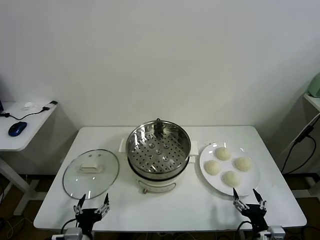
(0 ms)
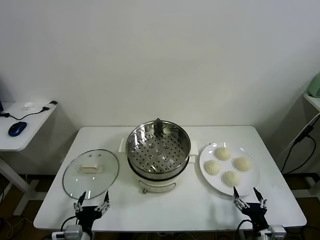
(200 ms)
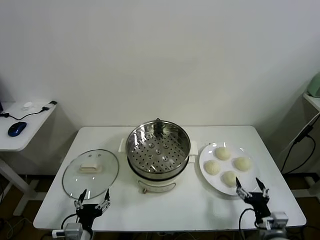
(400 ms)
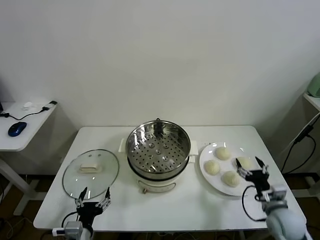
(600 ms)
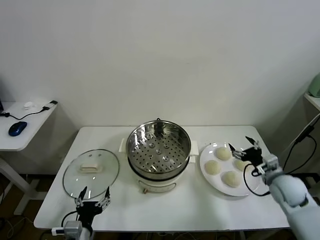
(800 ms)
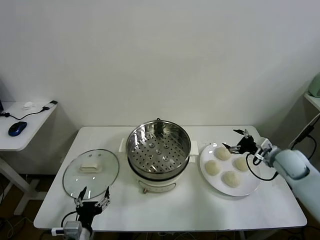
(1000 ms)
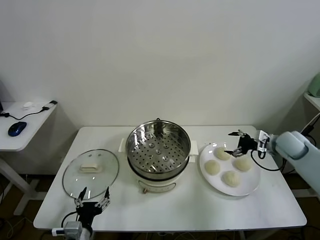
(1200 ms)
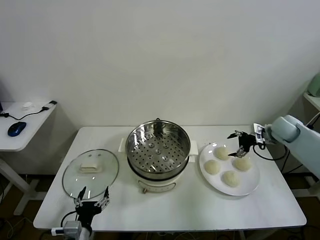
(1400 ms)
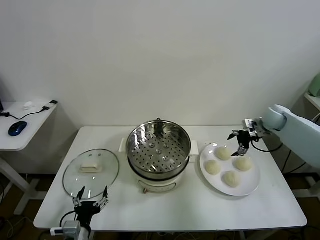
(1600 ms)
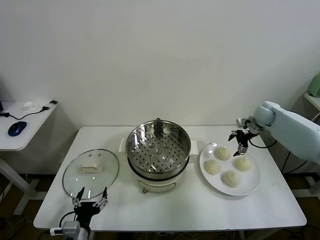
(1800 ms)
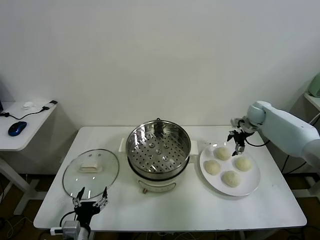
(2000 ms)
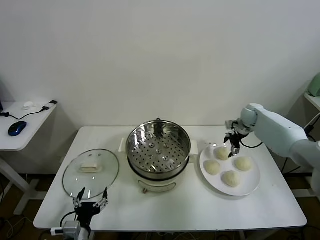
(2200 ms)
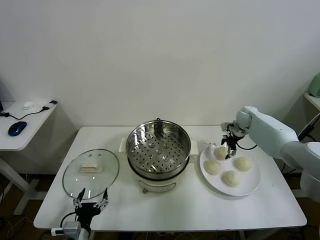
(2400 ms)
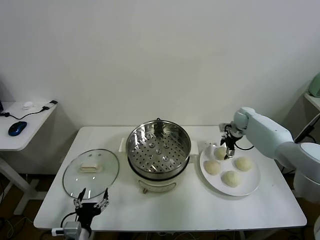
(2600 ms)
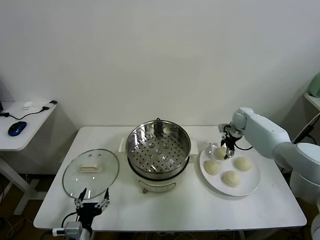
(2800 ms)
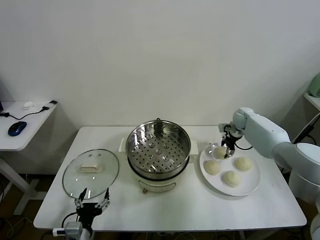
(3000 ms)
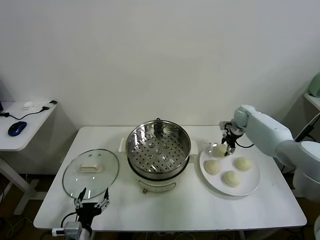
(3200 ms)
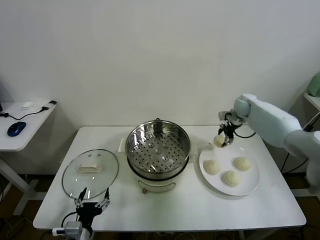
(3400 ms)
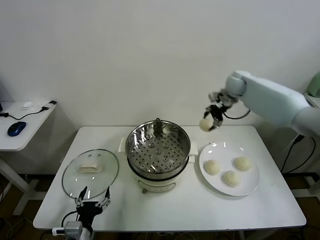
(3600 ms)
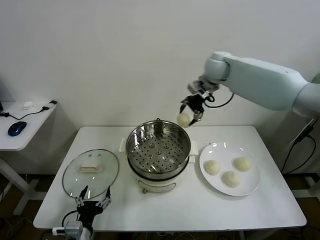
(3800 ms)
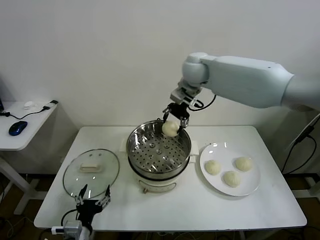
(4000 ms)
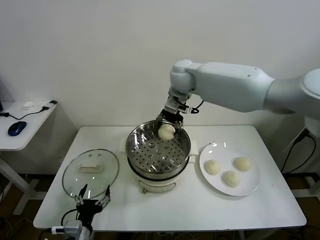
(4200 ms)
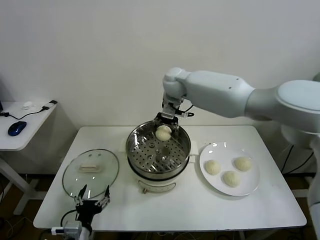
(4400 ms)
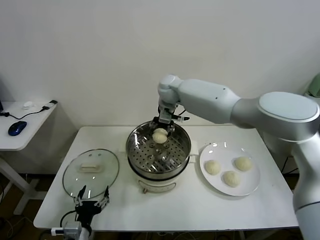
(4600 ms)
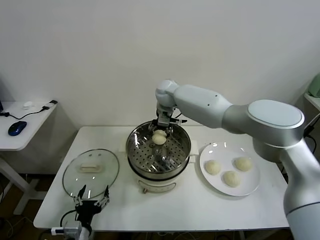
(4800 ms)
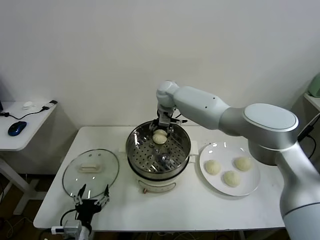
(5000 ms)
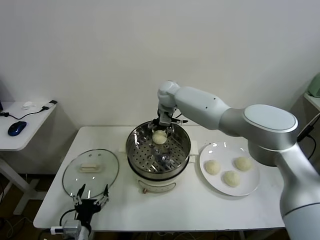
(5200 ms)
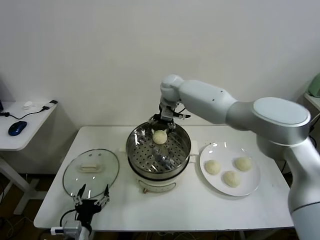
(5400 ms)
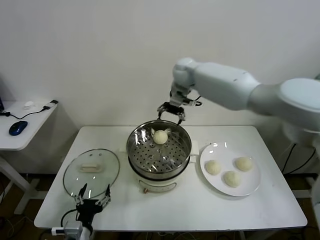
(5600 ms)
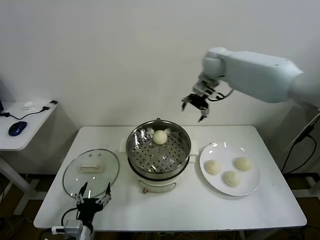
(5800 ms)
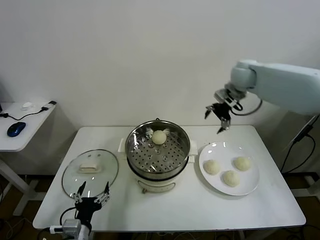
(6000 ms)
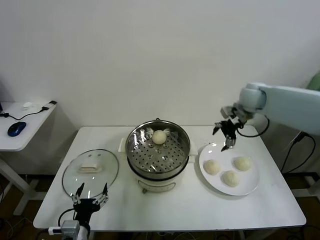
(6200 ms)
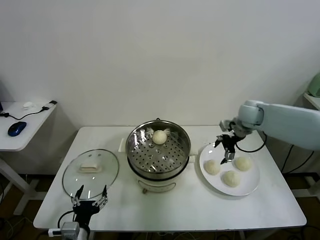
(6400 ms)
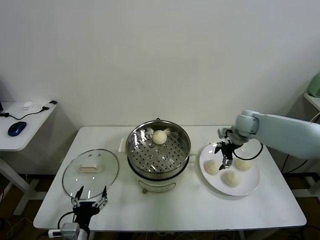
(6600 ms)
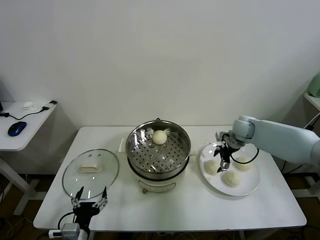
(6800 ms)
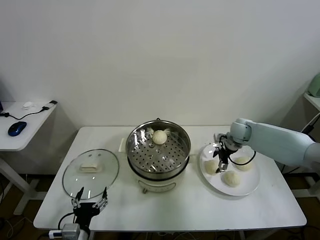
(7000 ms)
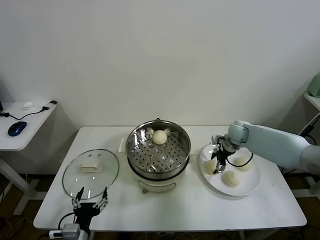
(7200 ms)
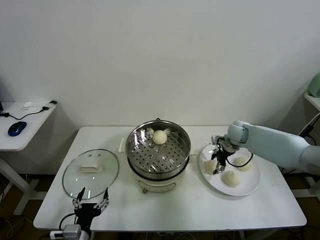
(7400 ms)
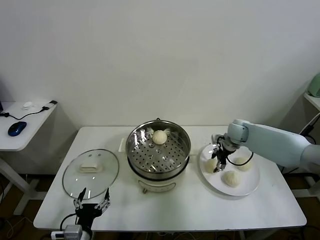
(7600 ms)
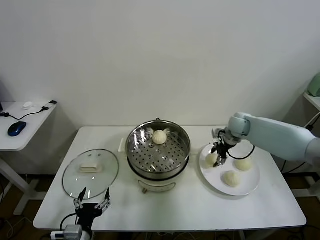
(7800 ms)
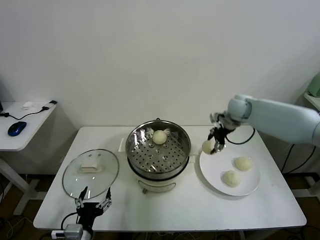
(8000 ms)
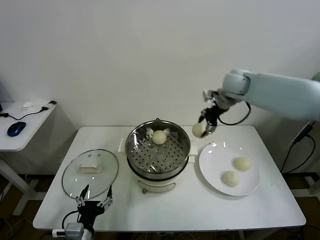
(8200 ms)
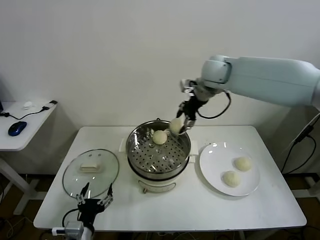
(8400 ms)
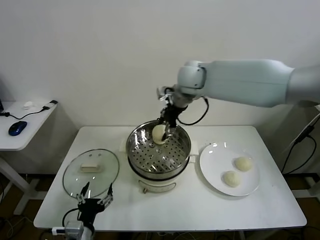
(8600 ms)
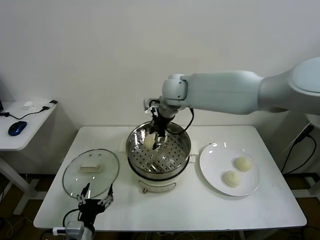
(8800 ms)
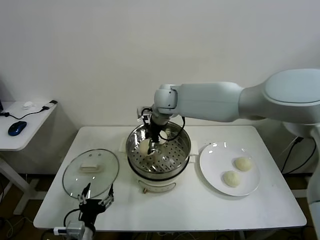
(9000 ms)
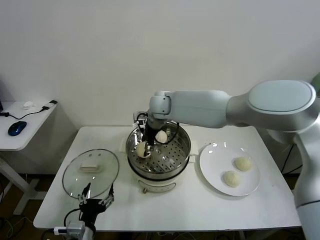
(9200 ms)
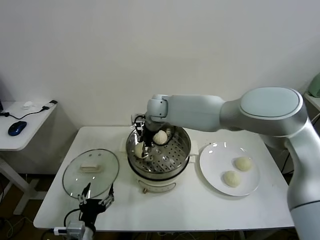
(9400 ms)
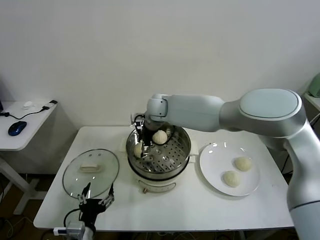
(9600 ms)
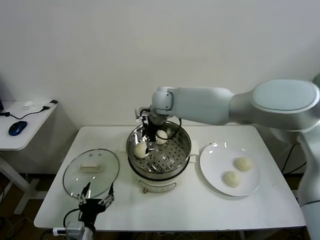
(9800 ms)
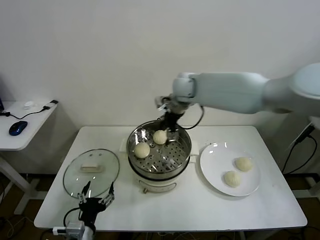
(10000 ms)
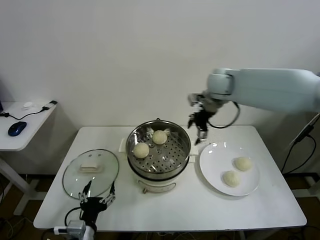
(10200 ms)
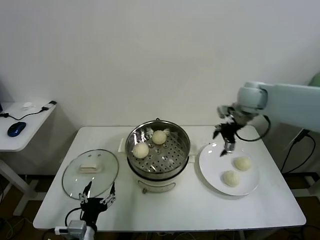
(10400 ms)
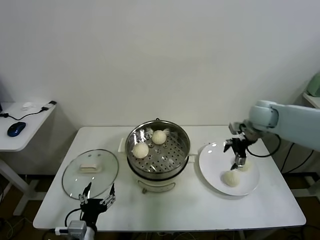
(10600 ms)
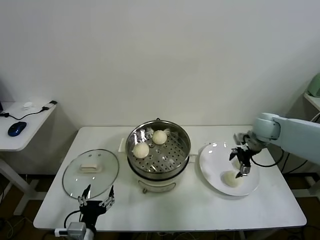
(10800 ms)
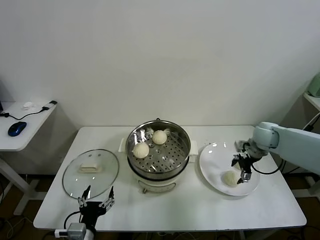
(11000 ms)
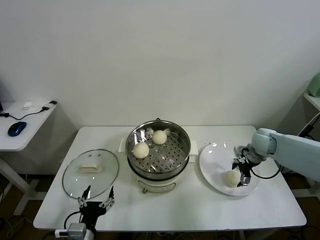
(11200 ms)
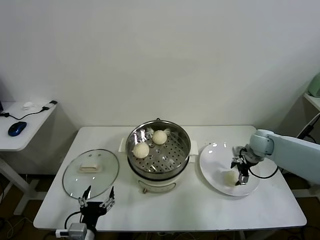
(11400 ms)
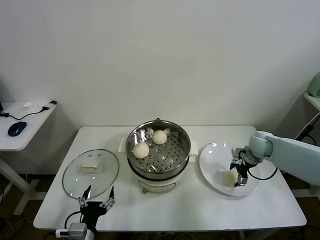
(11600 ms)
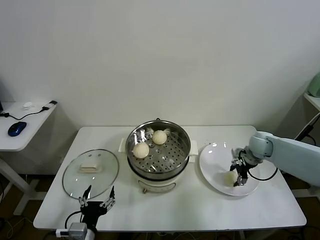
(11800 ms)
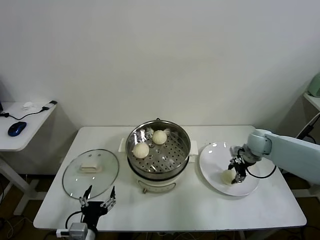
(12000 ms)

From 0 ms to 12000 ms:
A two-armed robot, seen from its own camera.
Task of the whole recording: take steamed baozi put them in steamer.
Step, from 0 ms to 3000 ms: Grasp the baozi in the plate with right gripper.
Step, from 3200 ms to 5400 ms: Place the baozi on the steamer with right gripper.
Step, from 5600 ms to 7400 ms: Grasp the baozi in the plate with right gripper.
Step, from 7600 ms to 9800 ms: Place the baozi on the steamer with right gripper.
Step, from 10000 ms to 11800 ms: Grasp the baozi in the plate with right gripper.
From 1600 ms to 3000 ms: The right gripper heads to the left, covering about 5 cm, and closes.
From 3000 ms to 4400 ms: The right gripper goes about 35 cm to the left and upward.
From 4400 ms to 6000 ms: The right gripper moves to the right, approximately 30 cm, and opens its fingers.
From 6000 ms to 7600 ms: The right gripper travels downward by approximately 15 cm, and closes up.
From 7600 ms to 9000 ms: The right gripper heads to the left, covering about 30 cm.
From 9000 ms to 10400 ms: The right gripper is displaced to the right by about 35 cm, and opens its fingers.
From 10400 ms to 12000 ms: The right gripper heads downward, covering roughly 15 cm, and closes.

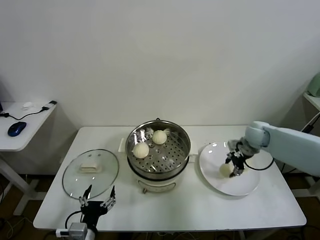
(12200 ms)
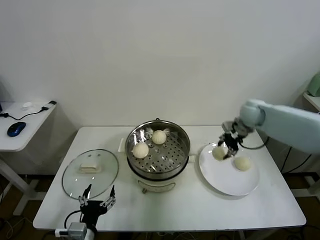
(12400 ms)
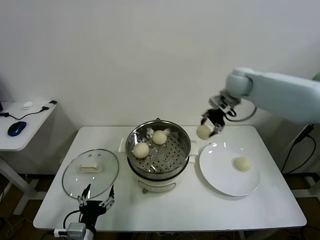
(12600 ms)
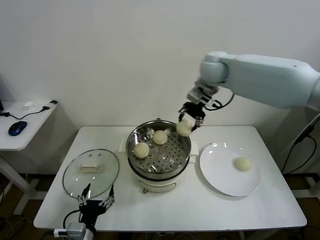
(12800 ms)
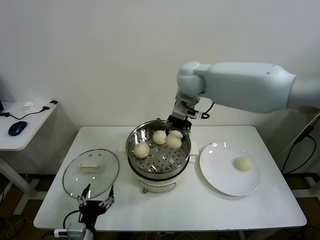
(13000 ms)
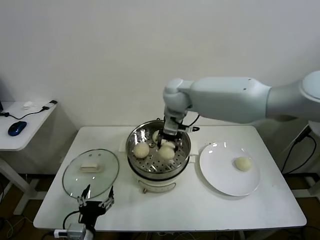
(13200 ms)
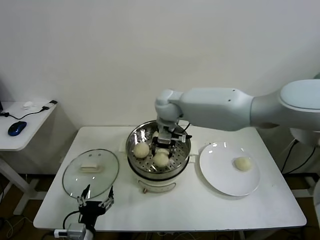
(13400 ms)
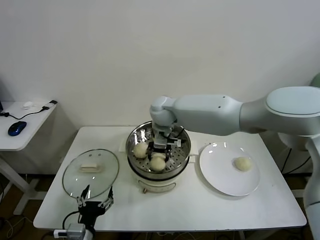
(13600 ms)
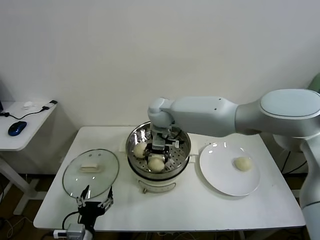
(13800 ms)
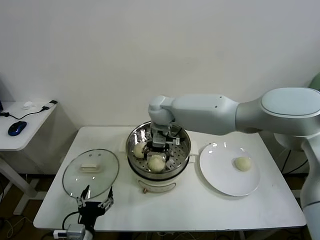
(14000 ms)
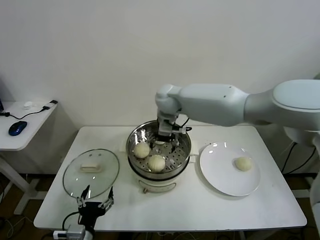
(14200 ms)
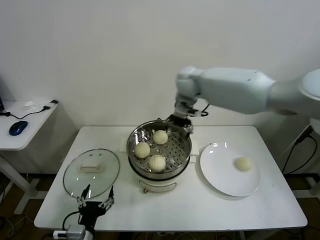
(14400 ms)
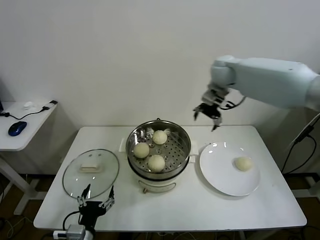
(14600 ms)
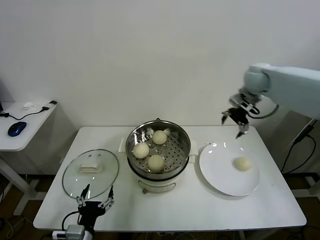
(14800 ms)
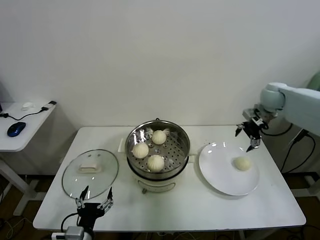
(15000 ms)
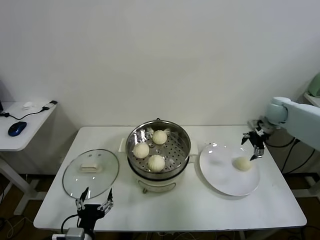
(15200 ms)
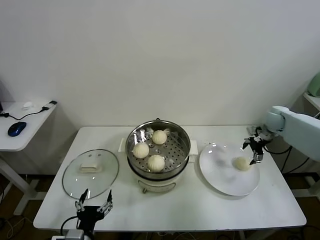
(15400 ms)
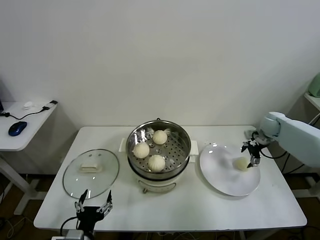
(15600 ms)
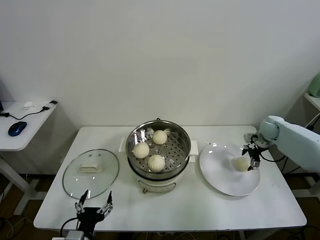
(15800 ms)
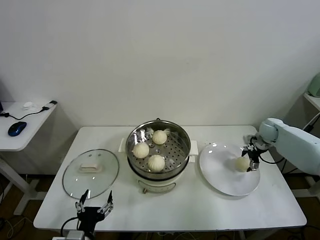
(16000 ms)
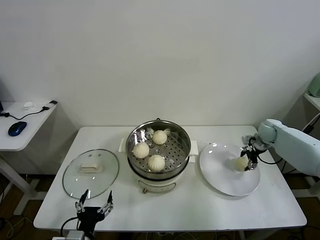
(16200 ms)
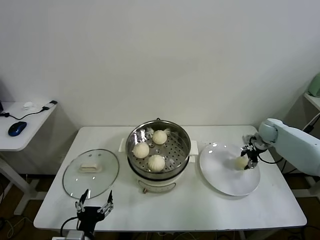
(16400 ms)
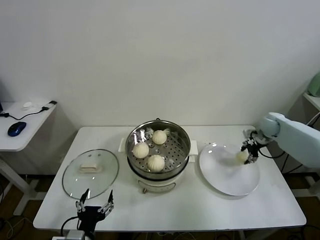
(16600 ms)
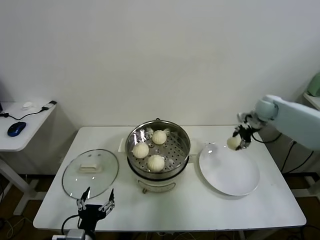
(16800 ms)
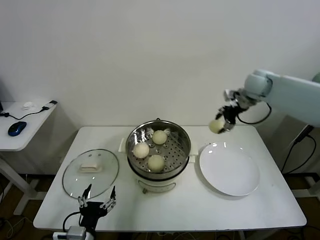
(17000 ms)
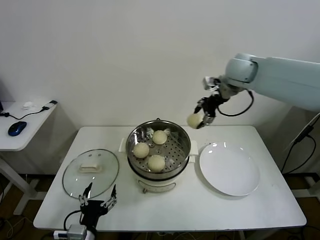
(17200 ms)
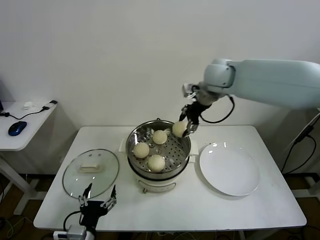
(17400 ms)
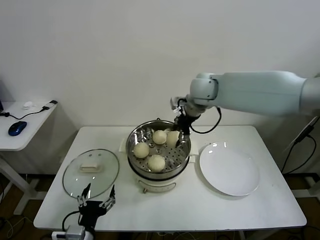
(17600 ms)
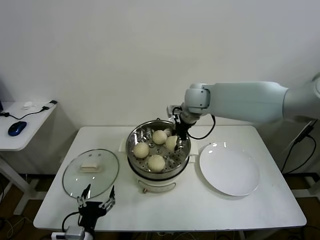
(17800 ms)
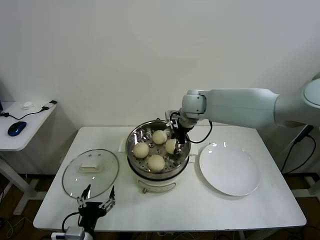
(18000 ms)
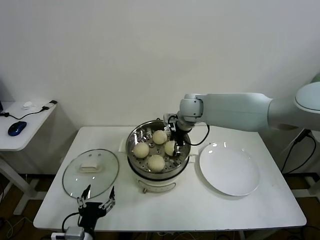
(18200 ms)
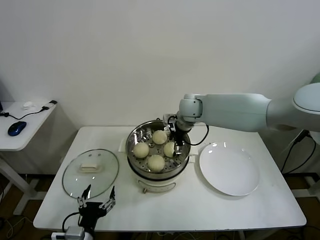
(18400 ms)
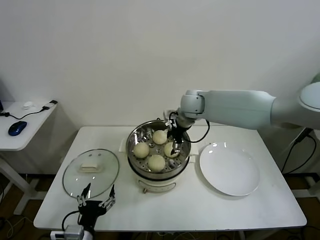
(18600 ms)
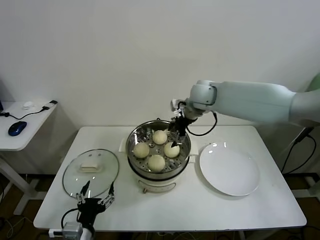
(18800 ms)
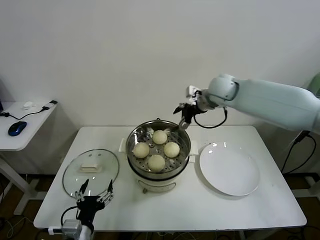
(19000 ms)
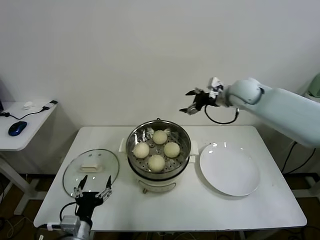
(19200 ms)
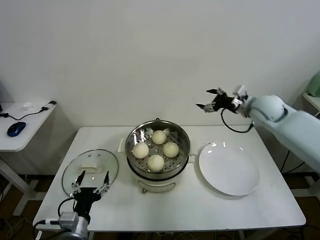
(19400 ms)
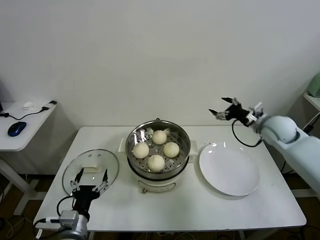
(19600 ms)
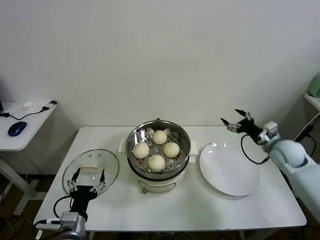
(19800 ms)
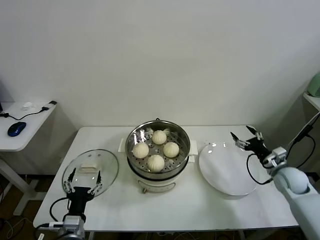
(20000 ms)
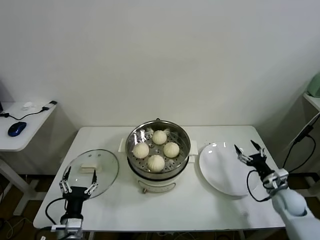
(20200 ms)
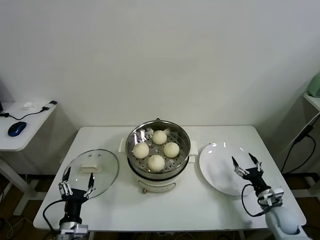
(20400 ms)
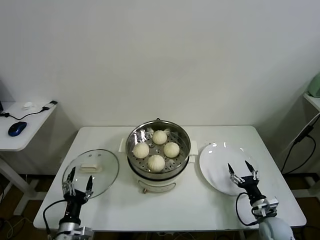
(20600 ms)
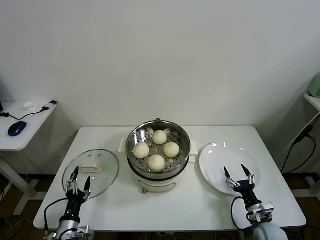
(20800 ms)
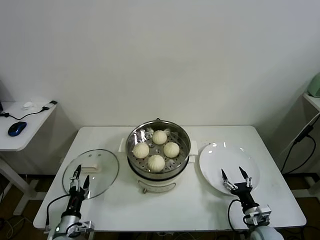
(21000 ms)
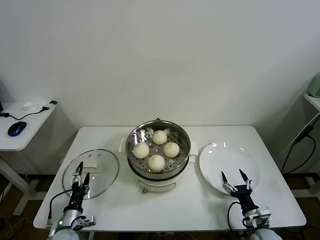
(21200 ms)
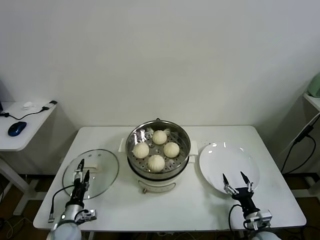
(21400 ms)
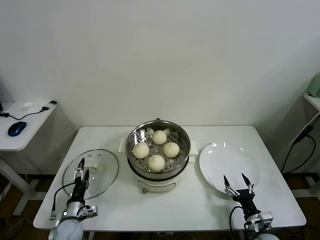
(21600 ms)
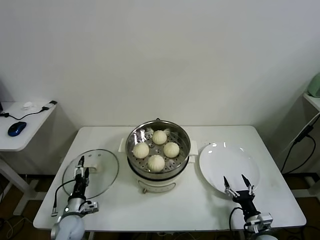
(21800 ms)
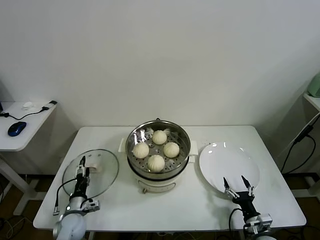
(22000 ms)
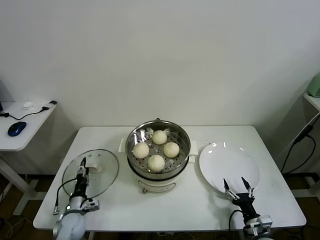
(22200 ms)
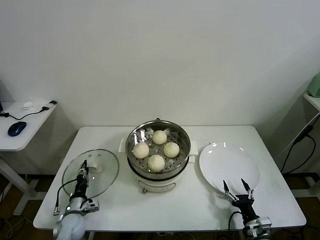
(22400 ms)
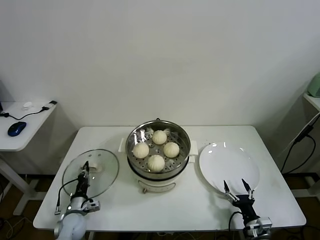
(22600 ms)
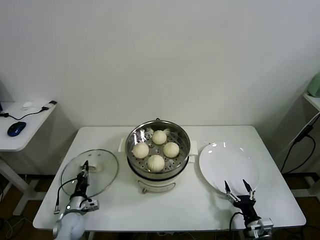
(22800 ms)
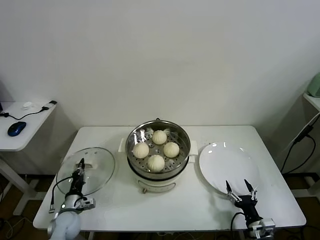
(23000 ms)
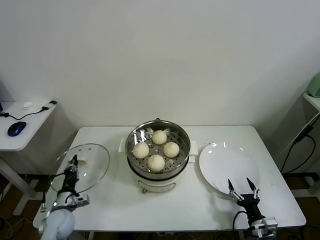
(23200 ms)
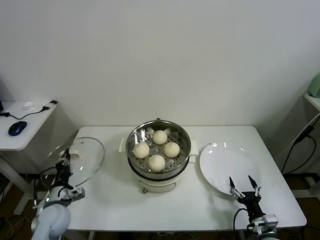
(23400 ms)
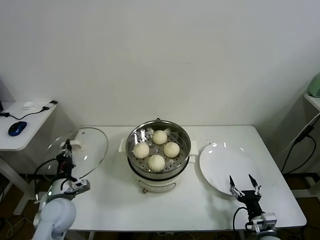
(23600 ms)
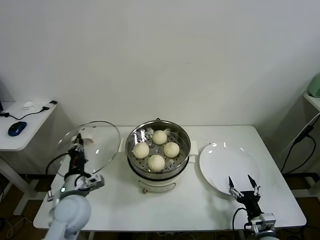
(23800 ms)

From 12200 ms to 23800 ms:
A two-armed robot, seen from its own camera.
Task of the whole recording: take steamed baozi put them in steamer.
Step, from 12200 ms to 14000 ms: Place the baozi on the steamer with right gripper.
Step, from 14200 ms to 16200 ms: Grasp the baozi in the plate with right gripper.
Step, from 16400 ms to 18400 ms: Place the baozi on the steamer with right gripper.
Step, from 18600 ms to 22600 ms: Grasp the pot lid with left gripper.
From 12200 ms to 13600 ms: The right gripper shifts some 35 cm to the left.
From 13600 ms to 15000 ms: The right gripper goes roughly 40 cm to the right, and opens.
From 15000 ms to 16600 ms: The right gripper travels downward by some 10 cm, and closes up.
From 16600 ms to 18000 ms: The right gripper moves to the left, roughly 30 cm.
From 18000 ms to 19400 ms: The right gripper heads to the right, covering about 25 cm, and opens.
From 19400 ms to 21000 ms: The left gripper goes some 15 cm downward and to the left; the right gripper travels downward and backward by about 40 cm.
From 21000 ms to 22400 ms: The left gripper is displaced forward by some 10 cm, and closes its fingers.
From 22400 ms to 23800 ms: The left gripper travels upward by some 20 cm, and closes up.
